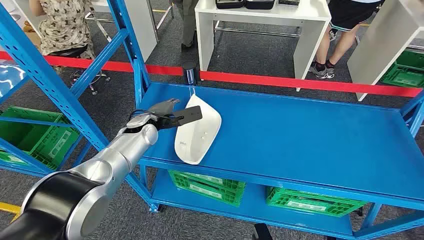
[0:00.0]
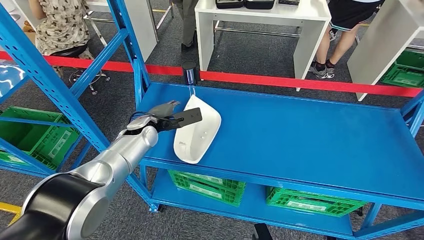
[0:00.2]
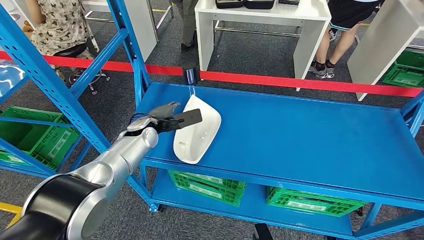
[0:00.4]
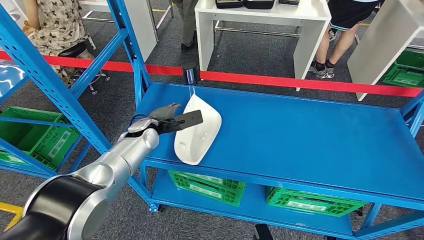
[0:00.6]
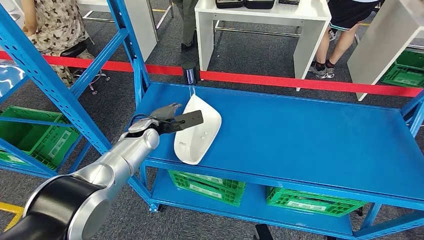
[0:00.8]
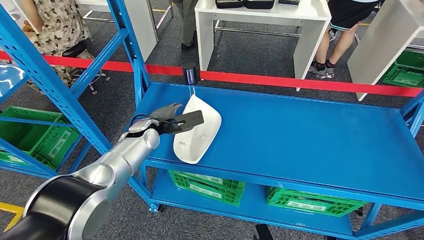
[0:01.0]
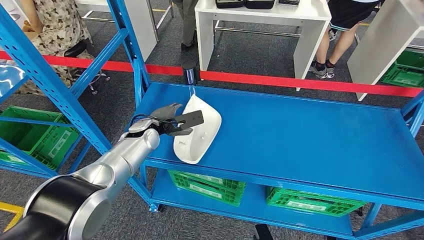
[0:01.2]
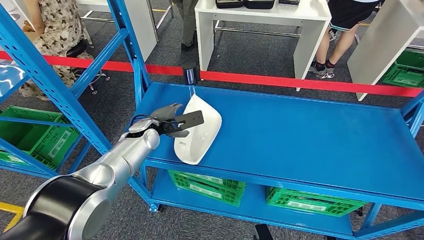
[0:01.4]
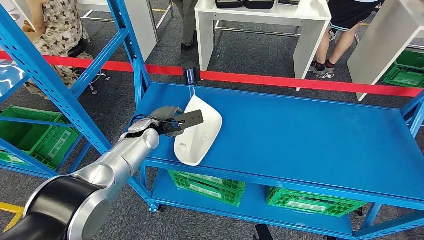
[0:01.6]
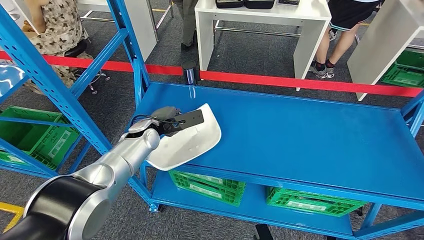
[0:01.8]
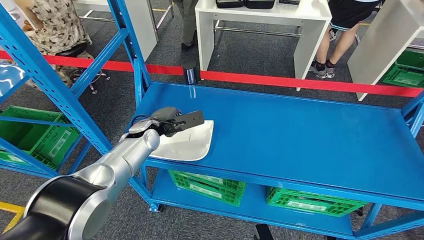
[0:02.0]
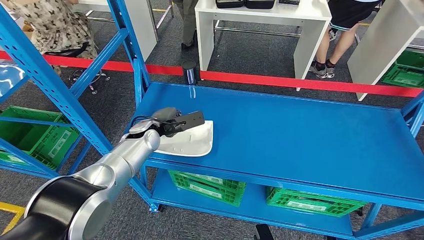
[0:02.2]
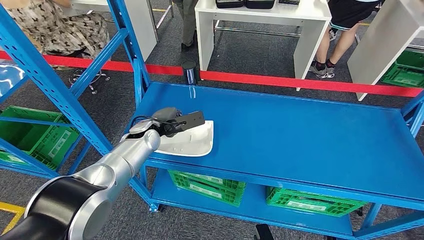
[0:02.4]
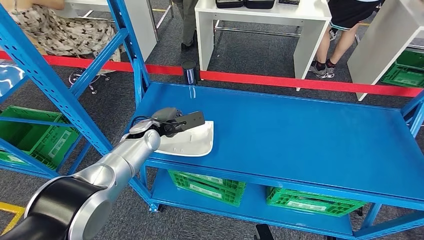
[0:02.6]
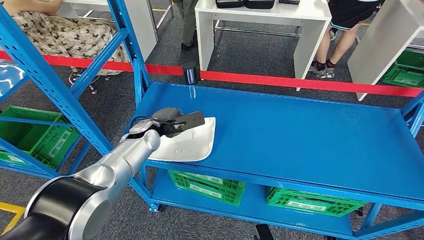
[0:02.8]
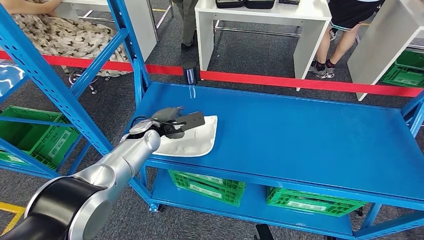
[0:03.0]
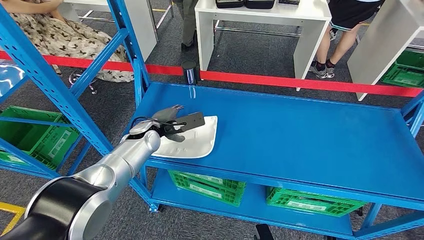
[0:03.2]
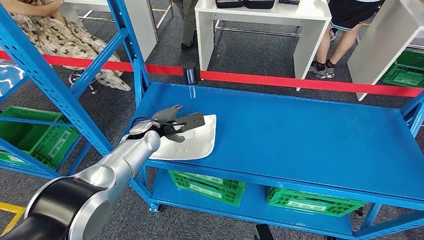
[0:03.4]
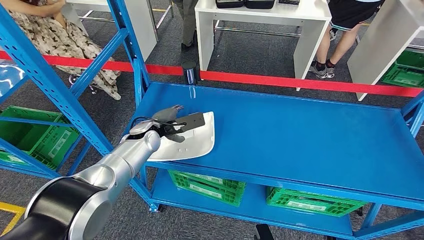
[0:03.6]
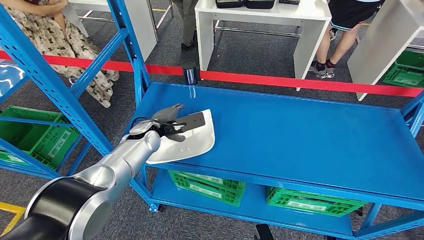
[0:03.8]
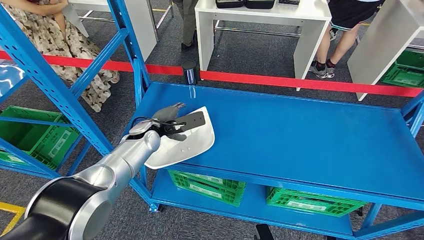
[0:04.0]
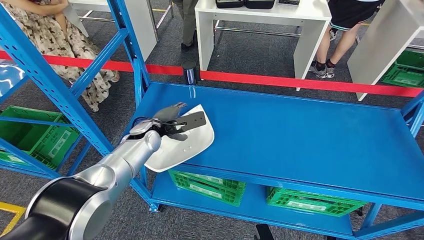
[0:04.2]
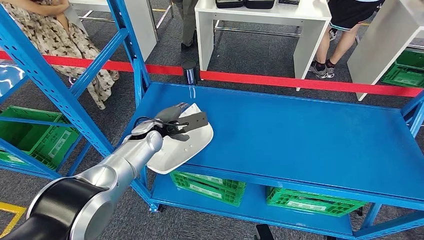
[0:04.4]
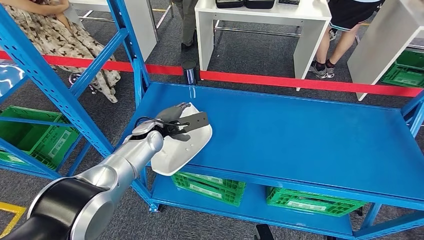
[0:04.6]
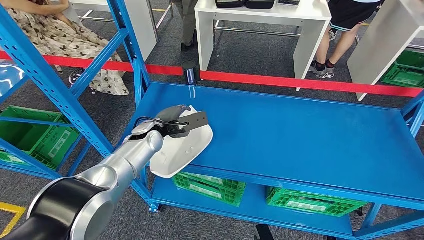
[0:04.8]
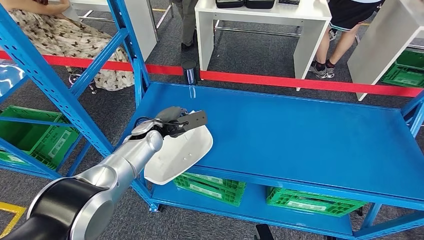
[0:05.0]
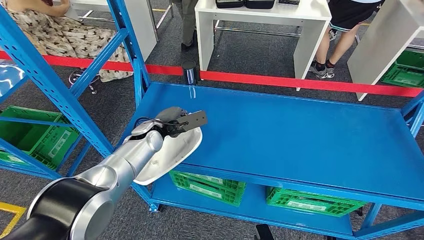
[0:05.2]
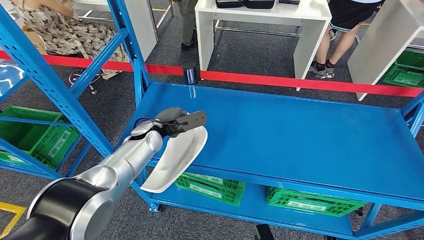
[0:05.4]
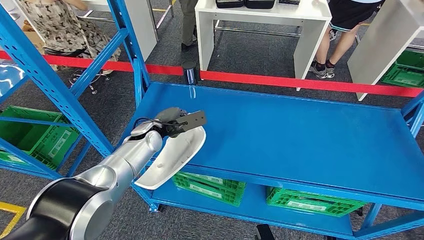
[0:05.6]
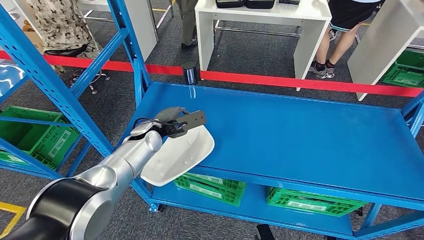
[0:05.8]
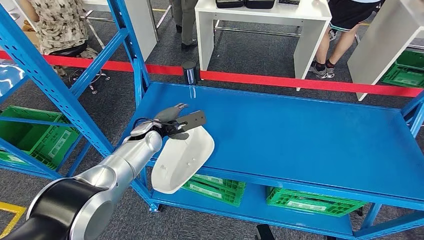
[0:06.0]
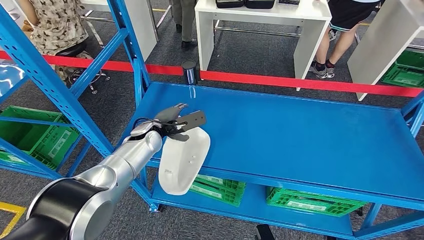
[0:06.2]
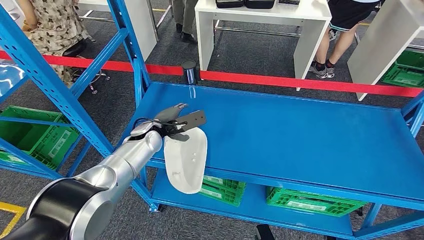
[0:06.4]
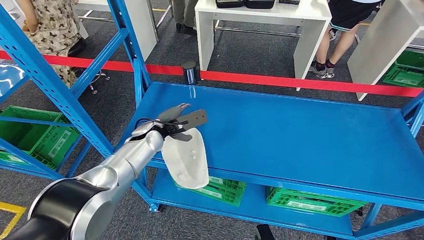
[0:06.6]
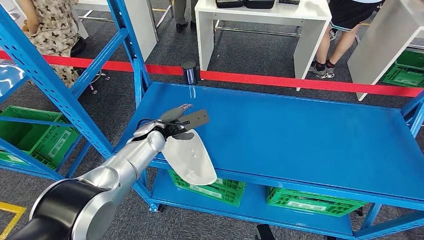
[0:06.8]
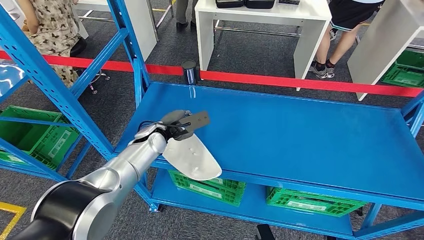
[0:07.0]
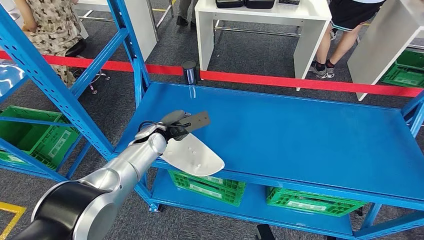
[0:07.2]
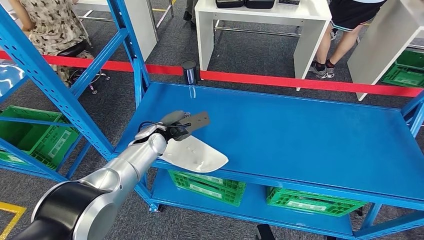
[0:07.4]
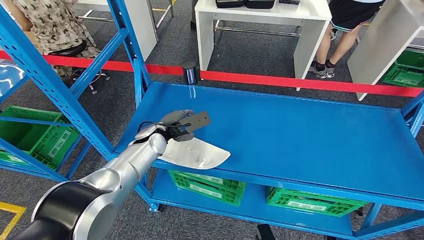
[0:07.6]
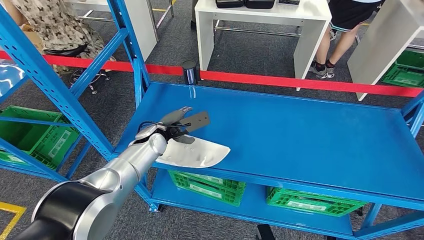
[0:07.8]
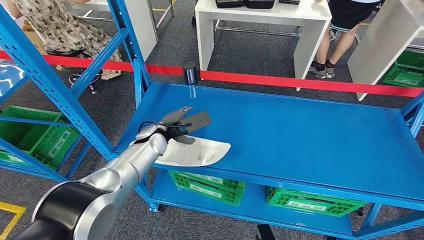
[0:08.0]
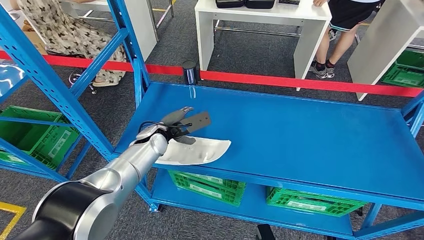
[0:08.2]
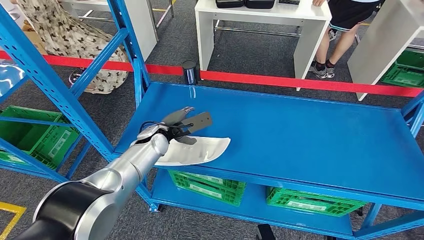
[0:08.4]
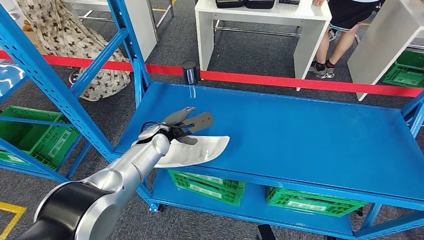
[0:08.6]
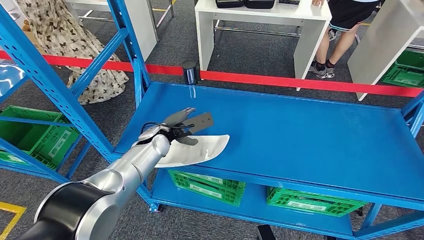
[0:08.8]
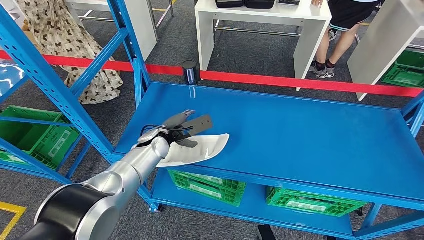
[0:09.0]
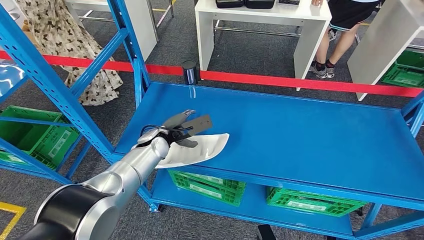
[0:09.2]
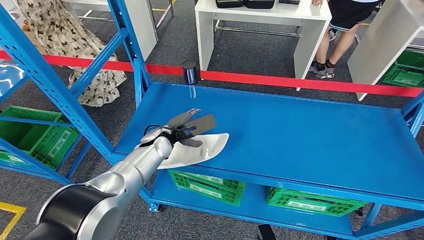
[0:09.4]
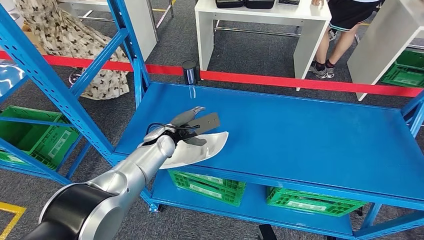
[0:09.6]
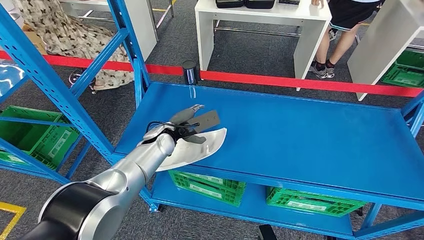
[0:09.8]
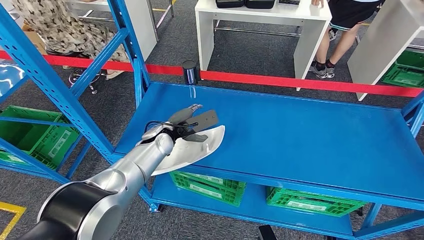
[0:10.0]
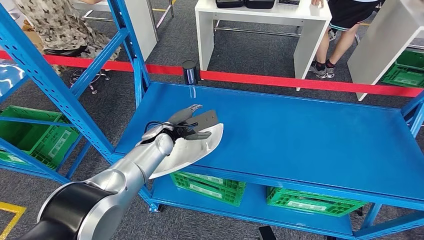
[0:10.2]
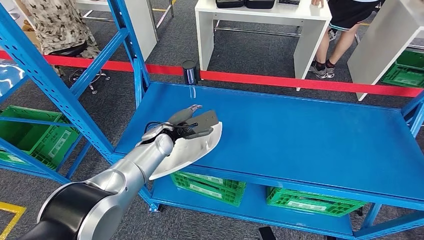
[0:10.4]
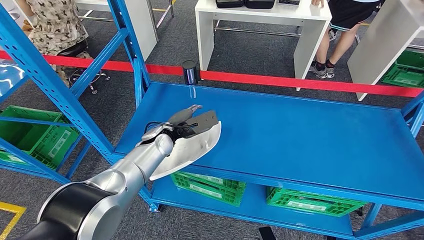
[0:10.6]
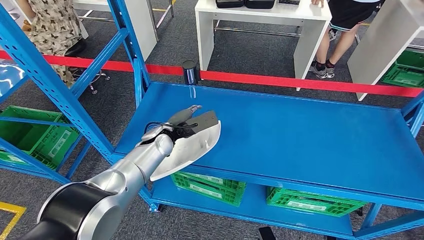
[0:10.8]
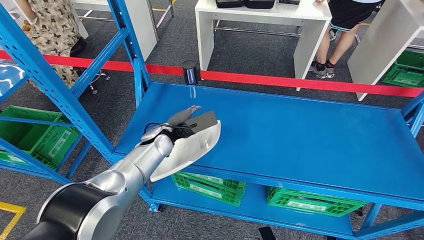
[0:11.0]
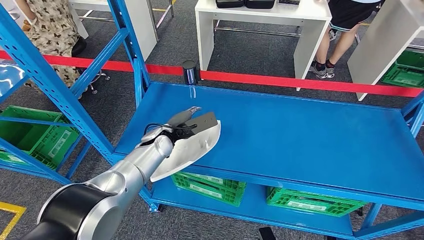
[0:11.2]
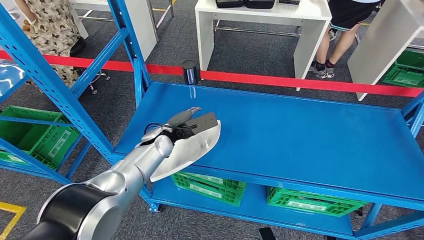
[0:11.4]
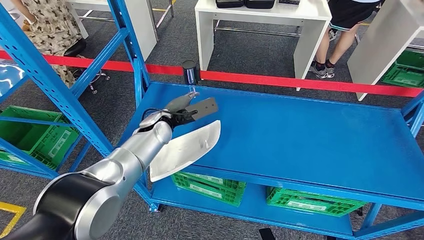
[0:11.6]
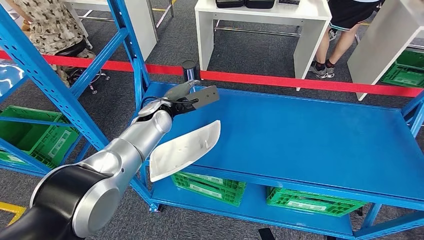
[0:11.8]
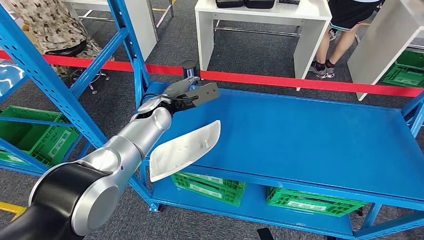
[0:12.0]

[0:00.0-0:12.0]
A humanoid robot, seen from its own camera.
0:01.6 to 0:03.0: The two hands keep their place.
0:03.0 to 0:04.4: Both hands stay put.
0:04.4 to 0:06.0: Neither hand changes place.
0:06.0 to 0:07.6: There are only small adjustments of the hands.
0:07.6 to 0:09.0: Neither hand changes place.
0:09.0 to 0:10.4: The hands stay close to where they were, moving slightly.
0:10.4 to 0:12.0: The left hand moves upward, some 10 cm.

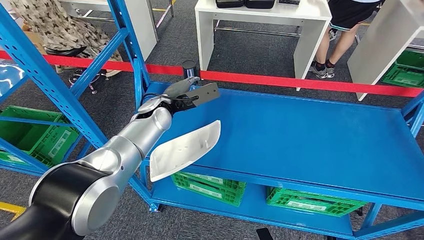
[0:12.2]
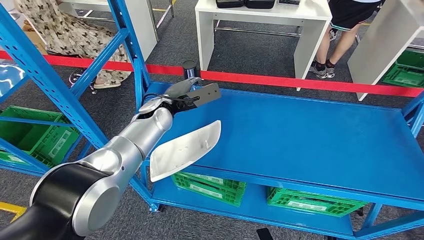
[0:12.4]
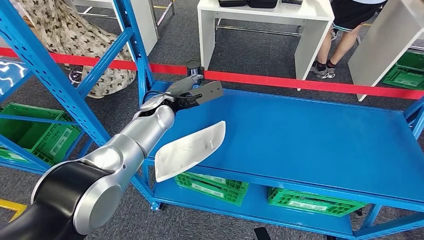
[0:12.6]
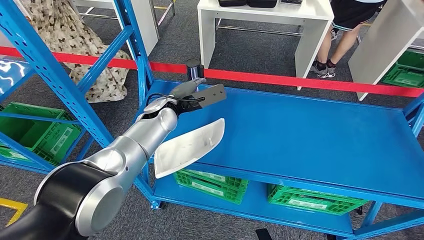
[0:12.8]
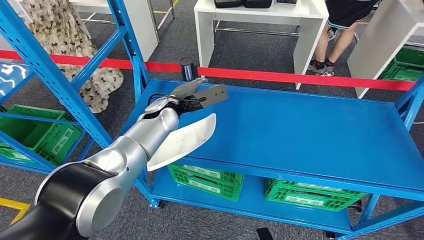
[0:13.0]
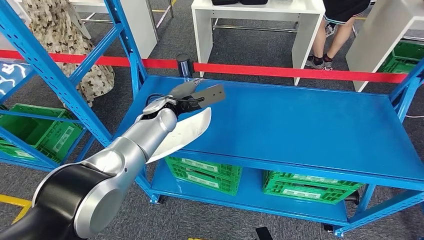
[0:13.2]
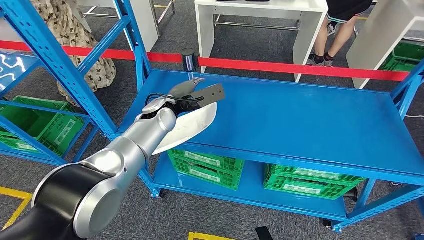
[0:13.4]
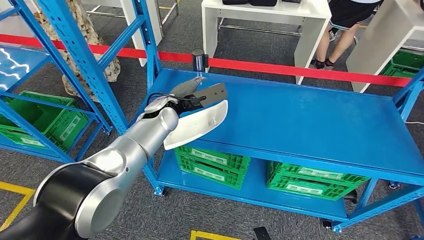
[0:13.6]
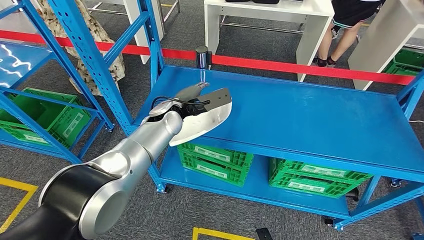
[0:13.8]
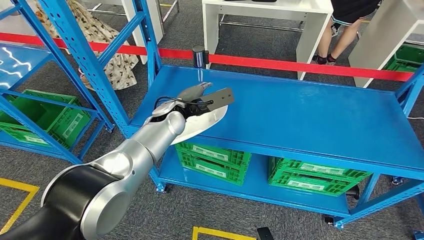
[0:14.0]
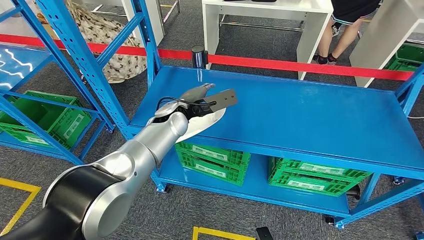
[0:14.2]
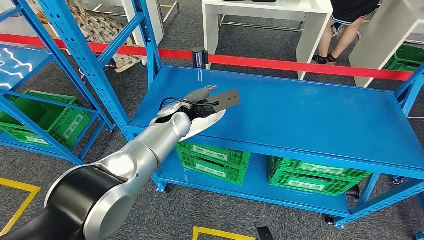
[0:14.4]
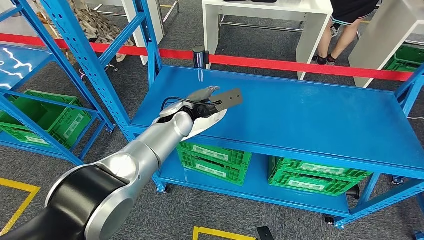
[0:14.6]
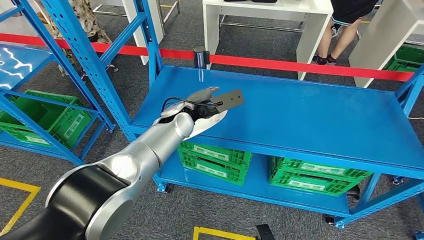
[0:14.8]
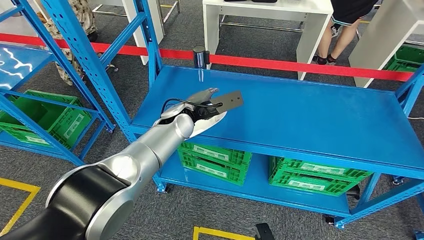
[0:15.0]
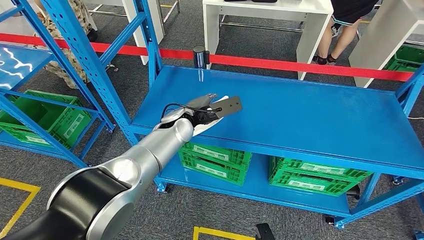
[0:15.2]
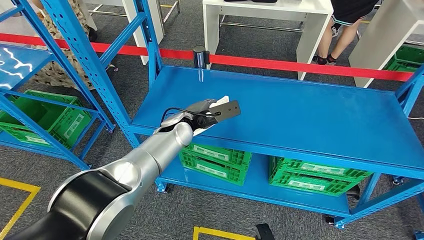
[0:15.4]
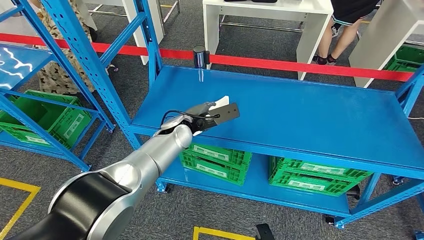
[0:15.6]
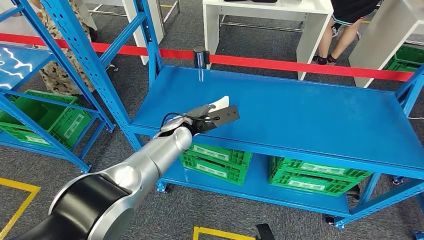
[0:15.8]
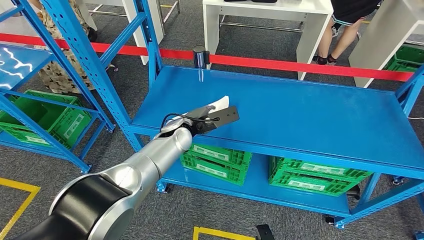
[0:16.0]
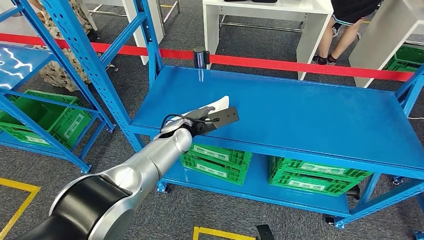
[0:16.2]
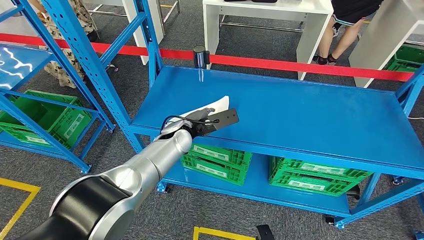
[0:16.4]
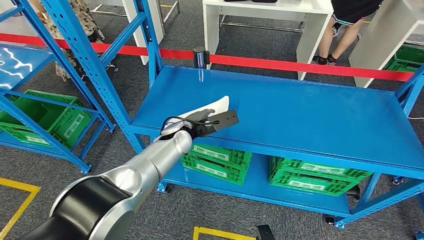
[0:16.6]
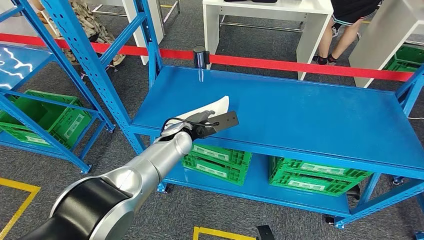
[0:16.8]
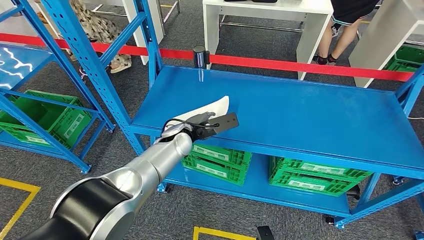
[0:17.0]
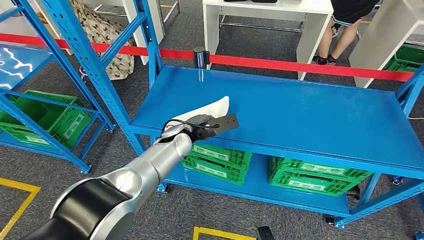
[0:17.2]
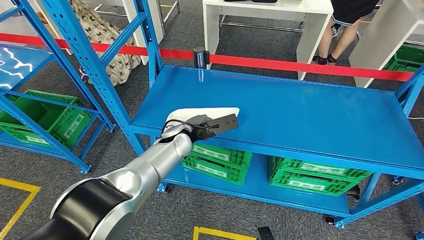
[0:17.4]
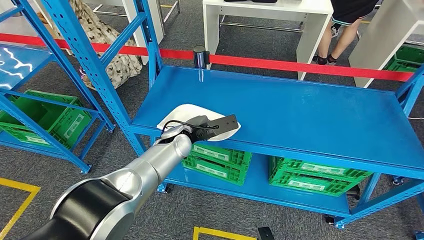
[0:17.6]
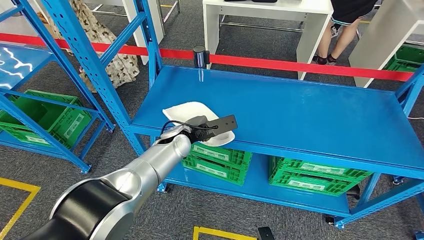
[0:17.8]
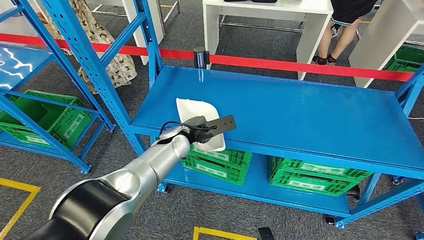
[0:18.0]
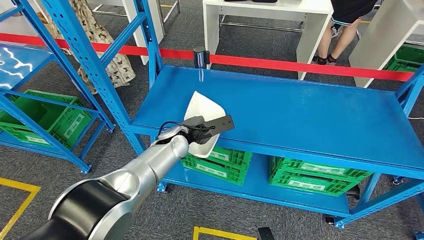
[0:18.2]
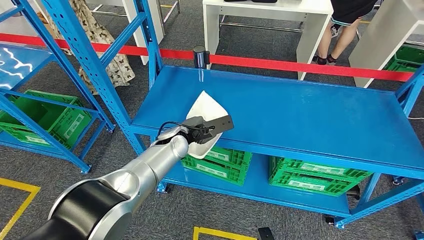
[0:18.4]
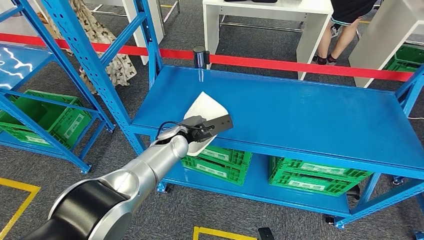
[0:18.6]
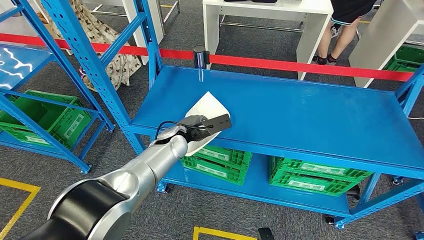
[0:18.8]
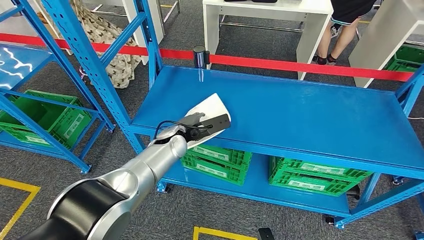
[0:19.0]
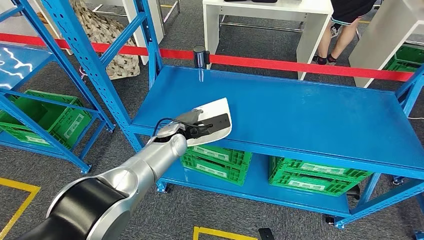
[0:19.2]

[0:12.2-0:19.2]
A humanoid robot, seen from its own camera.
0:15.0 to 0:16.4: The left hand changes place by approximately 5 cm.
0:16.4 to 0:19.2: There are only small adjustments of the hands.
